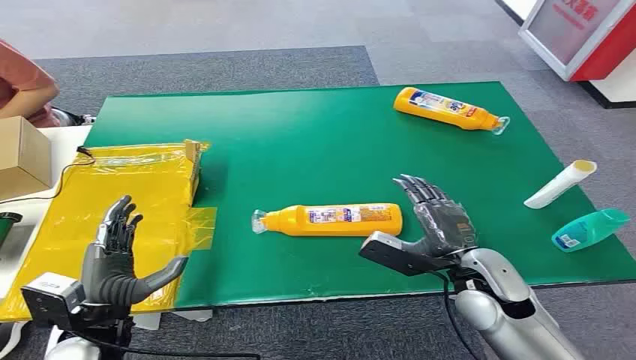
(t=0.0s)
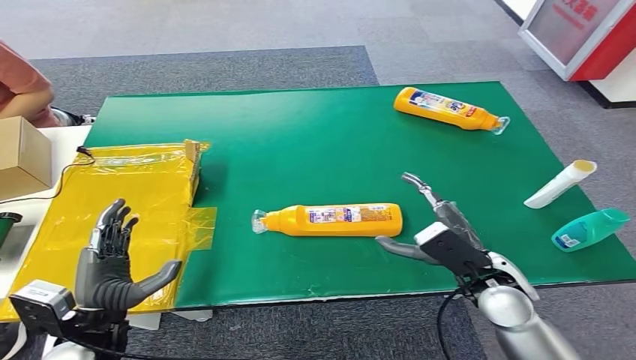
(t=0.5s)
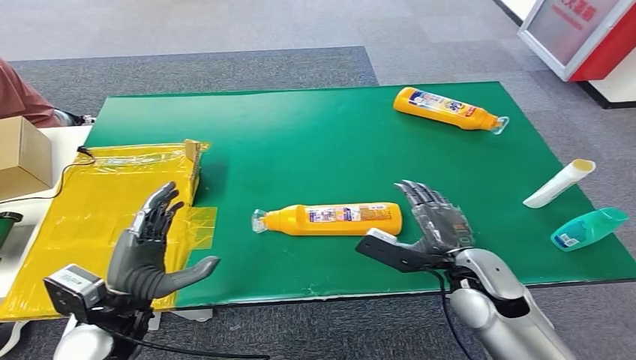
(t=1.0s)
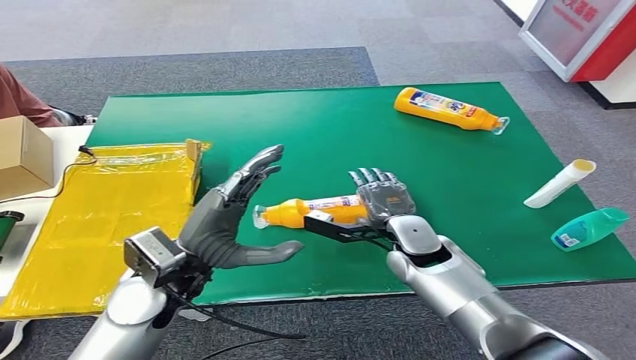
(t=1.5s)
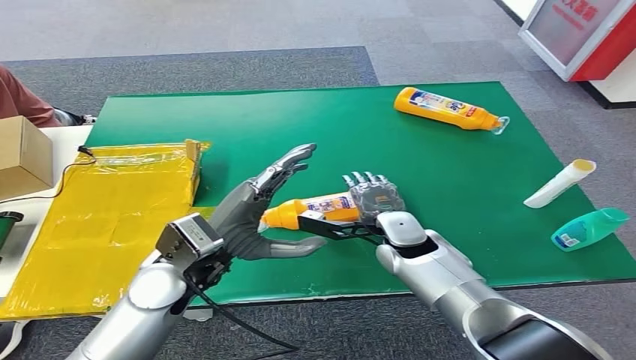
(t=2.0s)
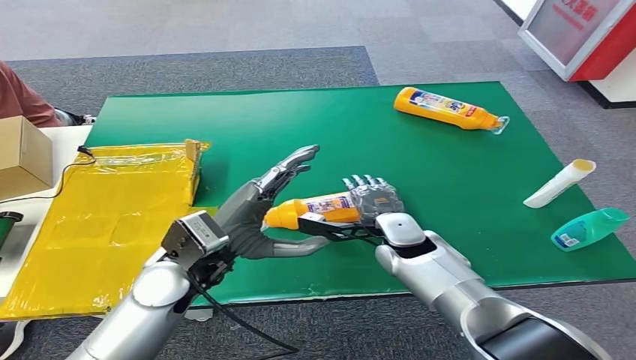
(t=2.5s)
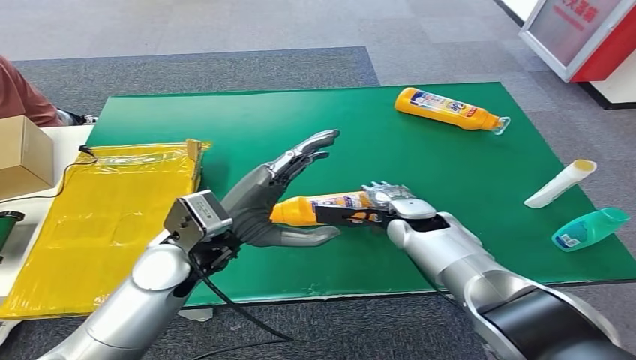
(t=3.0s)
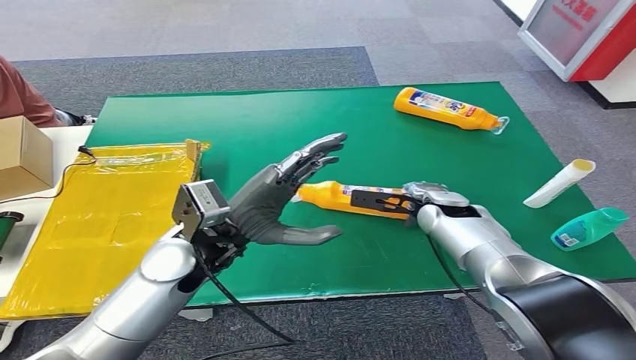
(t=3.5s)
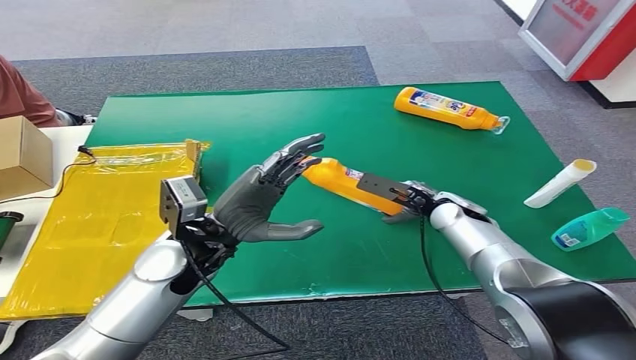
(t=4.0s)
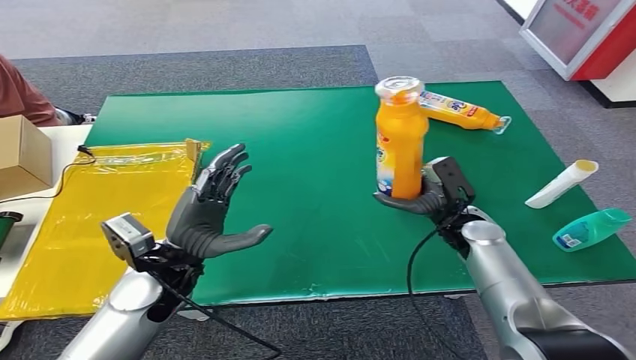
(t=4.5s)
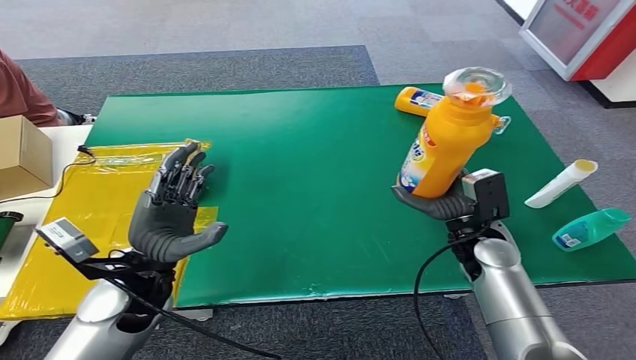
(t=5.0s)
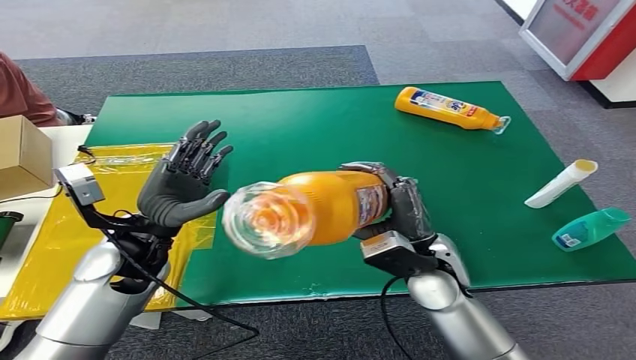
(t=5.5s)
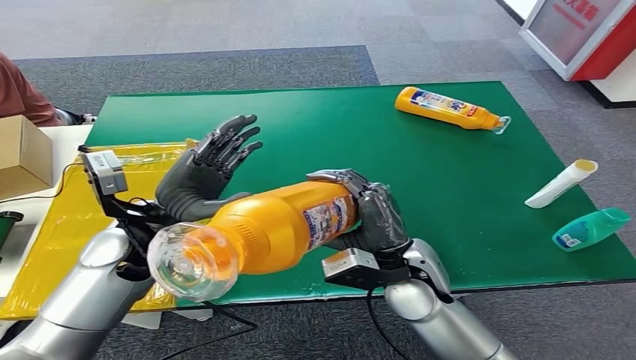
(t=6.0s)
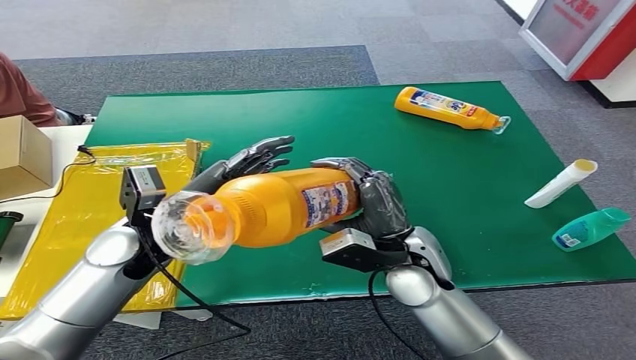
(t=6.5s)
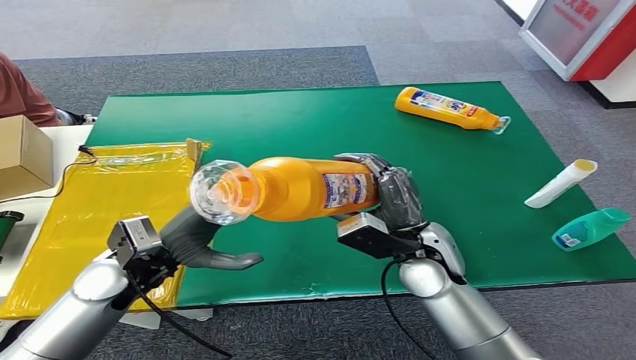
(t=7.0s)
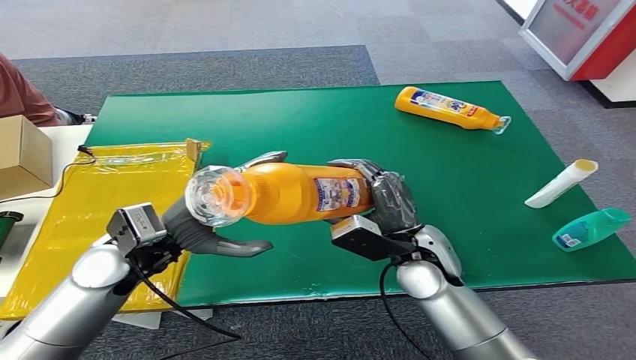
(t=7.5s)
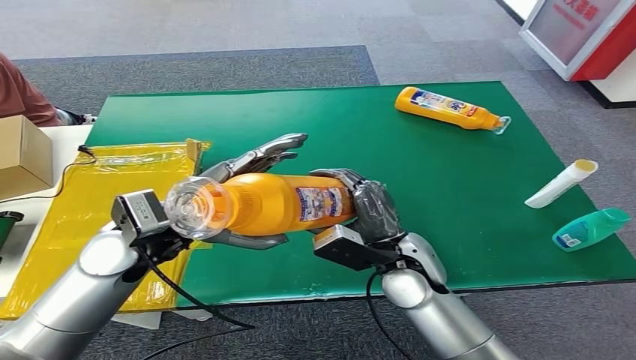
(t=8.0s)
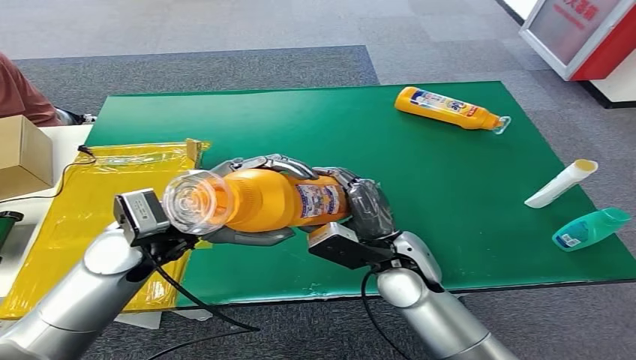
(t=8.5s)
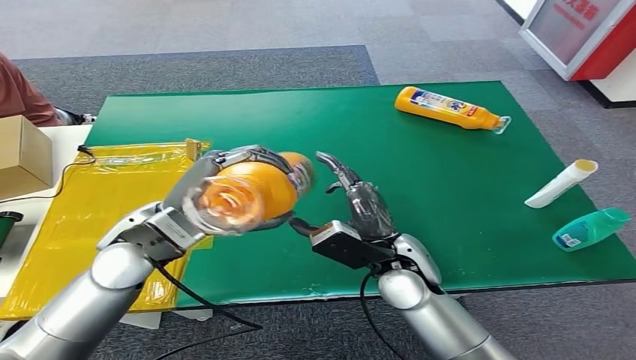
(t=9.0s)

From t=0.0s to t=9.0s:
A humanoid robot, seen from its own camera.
Step, from t=0.0s to t=4.5s: Pick up the bottle from the table.
From t=7.0s to t=9.0s: The left hand moves upward, some 5 cm.

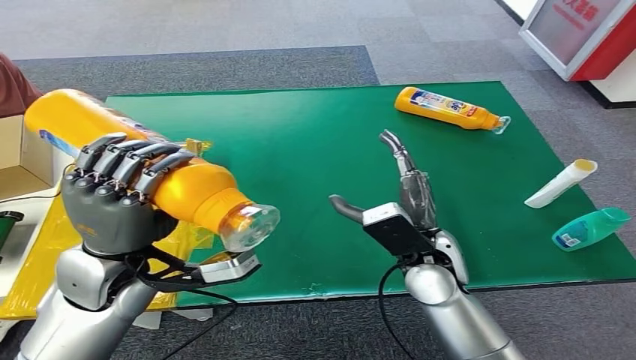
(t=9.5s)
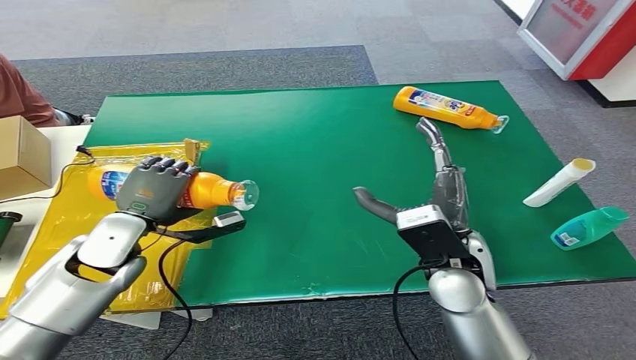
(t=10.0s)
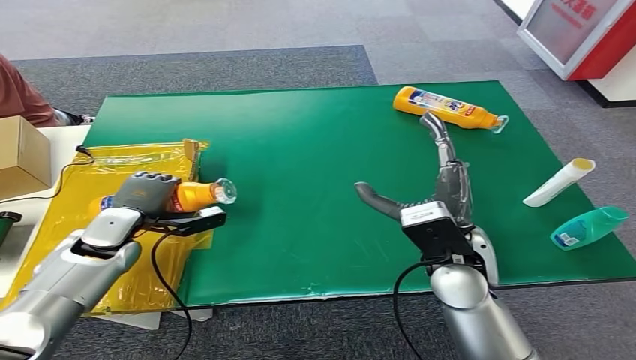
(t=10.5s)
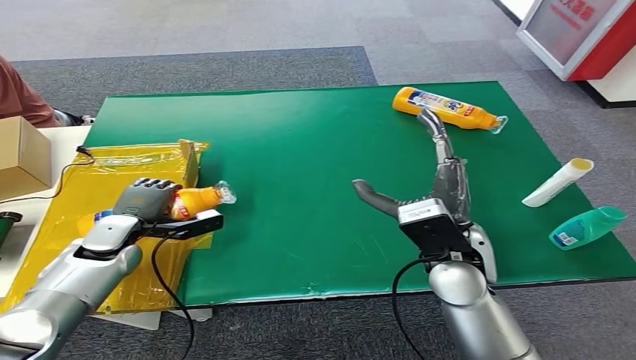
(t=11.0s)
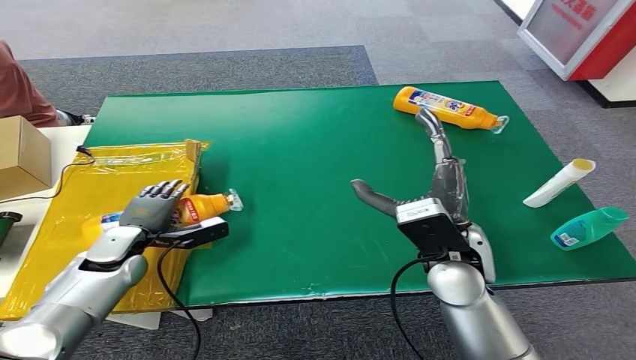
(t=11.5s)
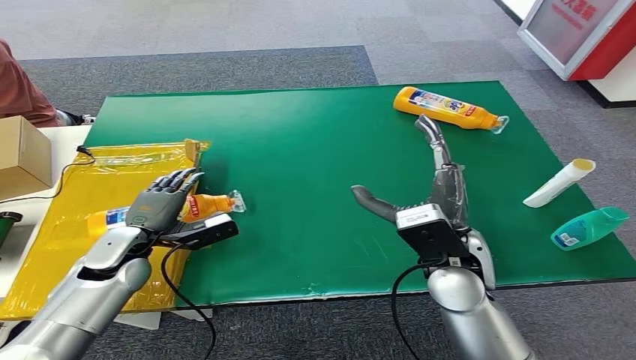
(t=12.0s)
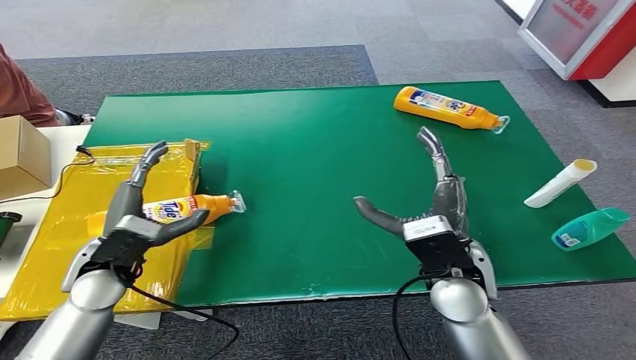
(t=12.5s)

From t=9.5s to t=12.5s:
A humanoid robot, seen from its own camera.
Step, from t=9.5s to t=12.5s: Turn the bottle to the front side.
From t=11.0s to t=12.5s: The left hand goes approximately 10 cm backward and upward.
